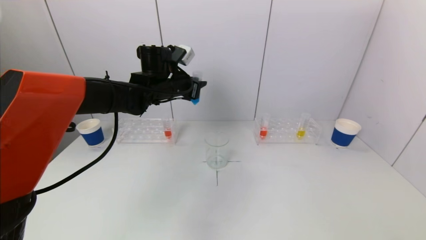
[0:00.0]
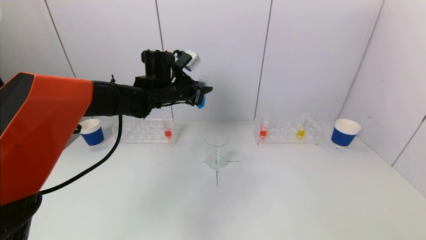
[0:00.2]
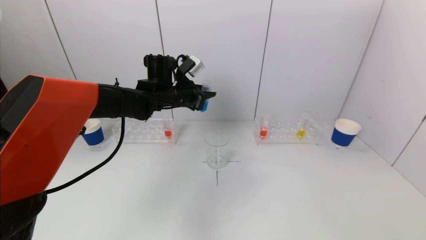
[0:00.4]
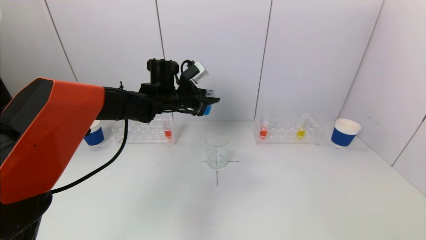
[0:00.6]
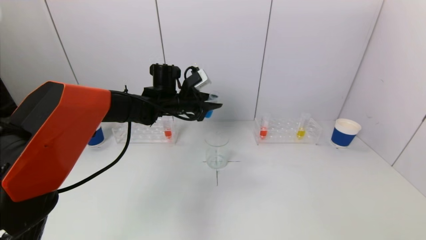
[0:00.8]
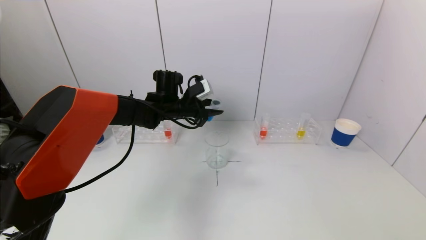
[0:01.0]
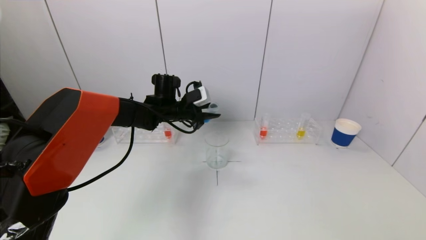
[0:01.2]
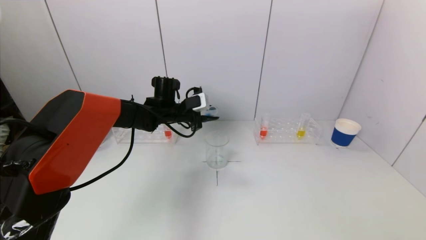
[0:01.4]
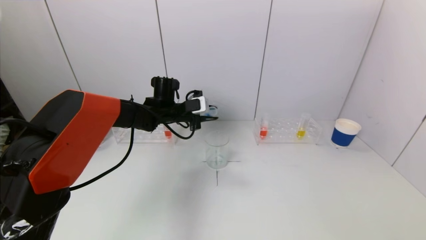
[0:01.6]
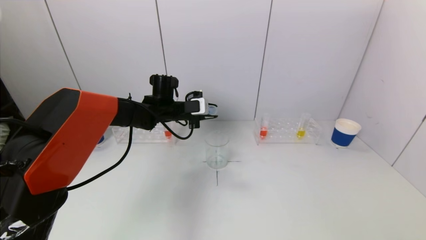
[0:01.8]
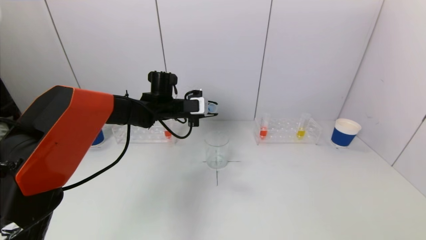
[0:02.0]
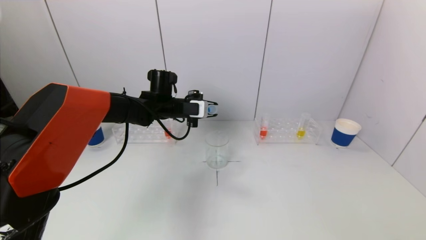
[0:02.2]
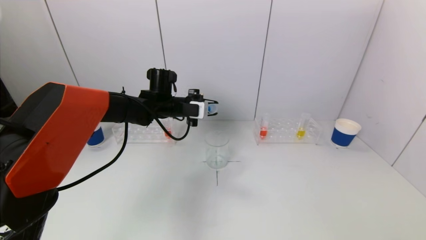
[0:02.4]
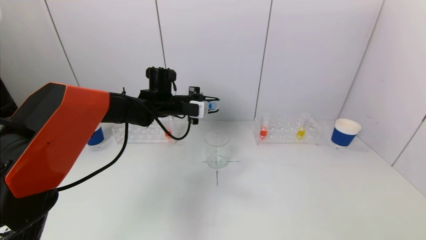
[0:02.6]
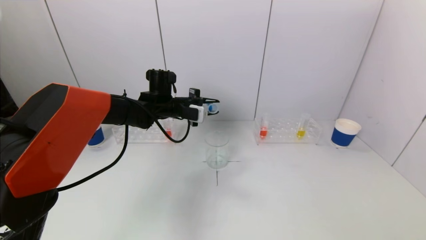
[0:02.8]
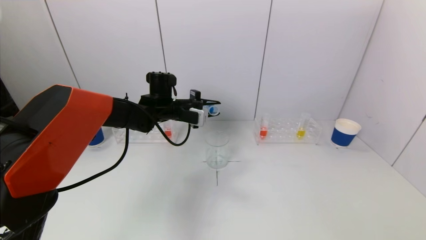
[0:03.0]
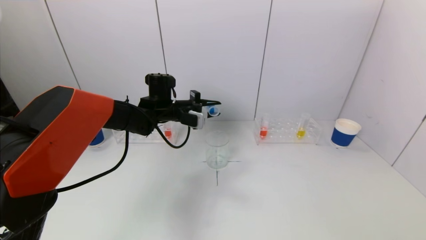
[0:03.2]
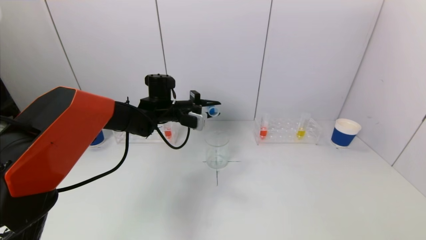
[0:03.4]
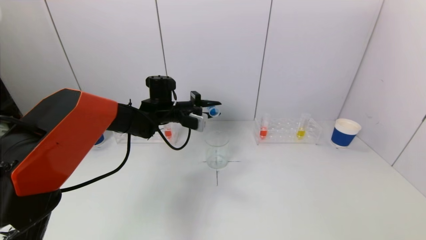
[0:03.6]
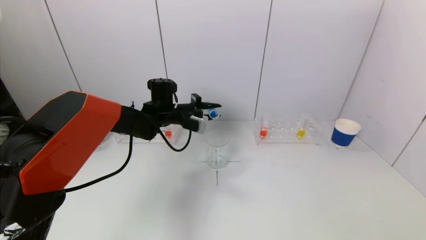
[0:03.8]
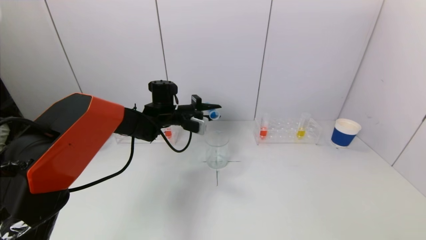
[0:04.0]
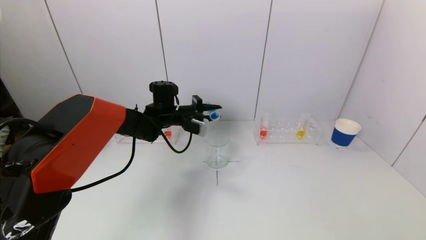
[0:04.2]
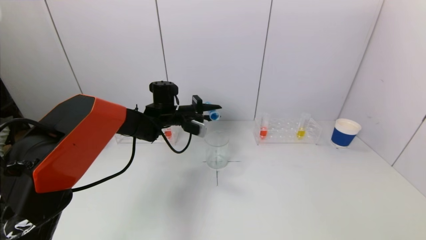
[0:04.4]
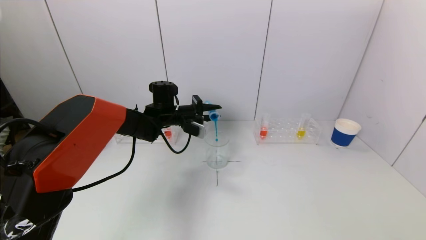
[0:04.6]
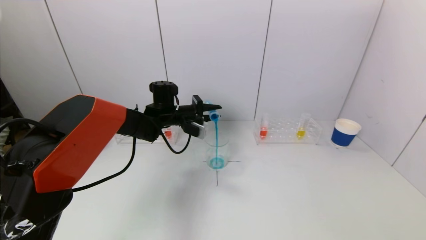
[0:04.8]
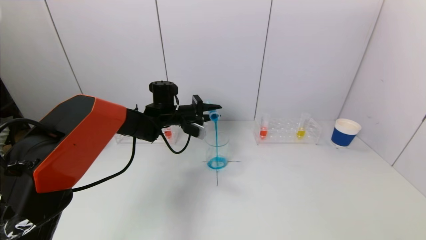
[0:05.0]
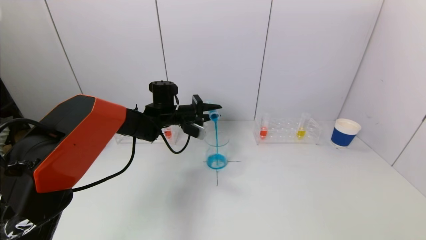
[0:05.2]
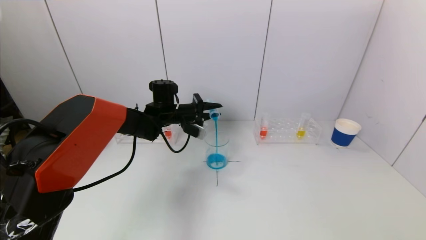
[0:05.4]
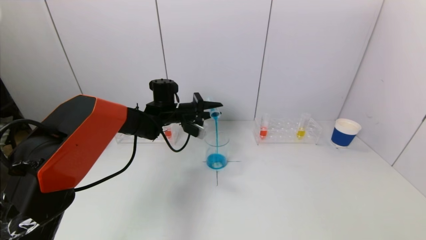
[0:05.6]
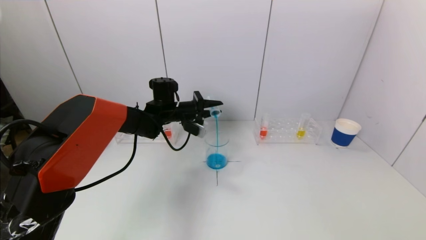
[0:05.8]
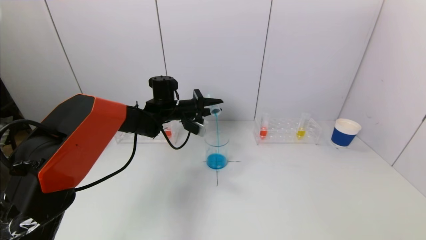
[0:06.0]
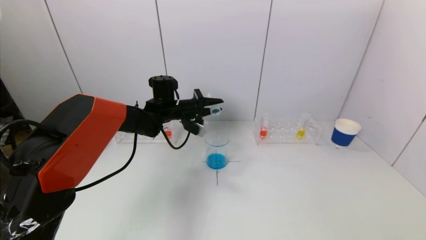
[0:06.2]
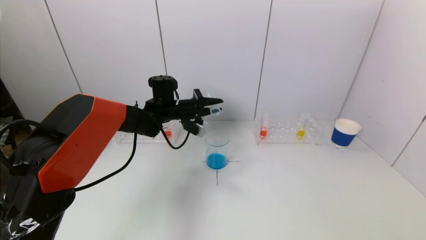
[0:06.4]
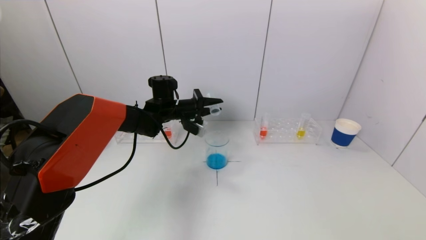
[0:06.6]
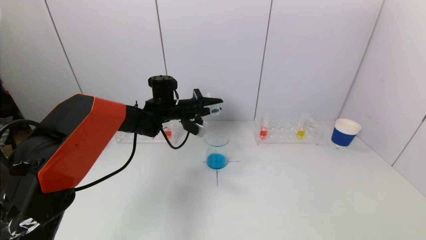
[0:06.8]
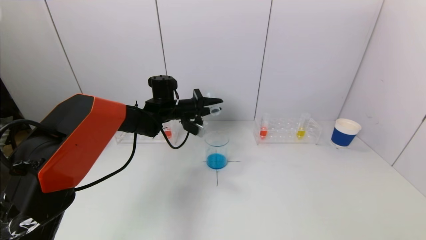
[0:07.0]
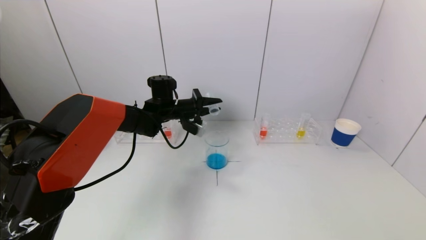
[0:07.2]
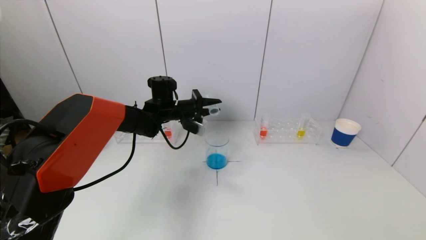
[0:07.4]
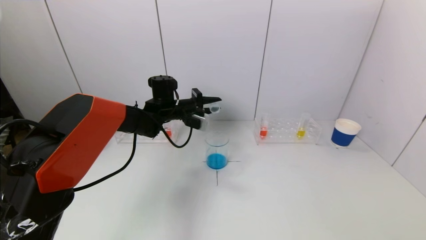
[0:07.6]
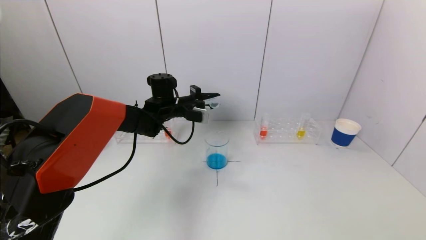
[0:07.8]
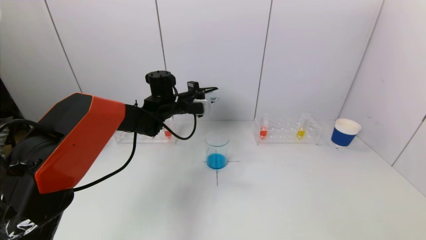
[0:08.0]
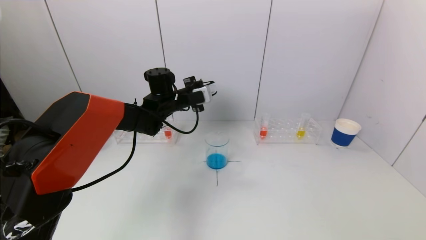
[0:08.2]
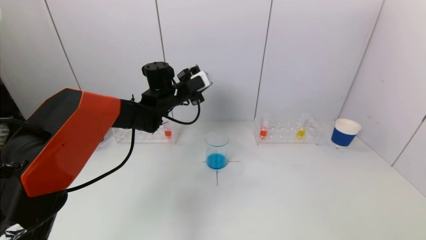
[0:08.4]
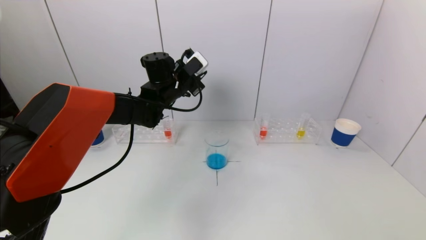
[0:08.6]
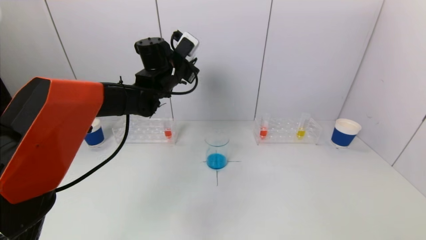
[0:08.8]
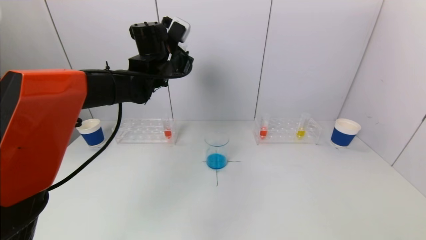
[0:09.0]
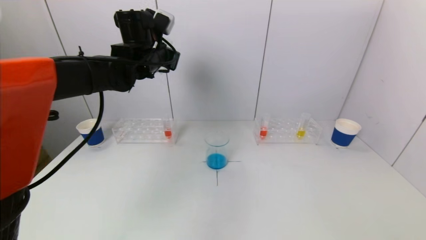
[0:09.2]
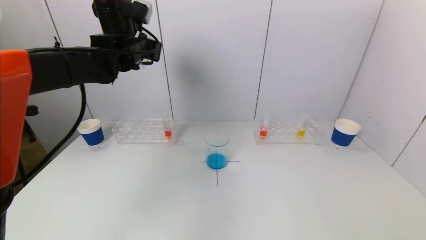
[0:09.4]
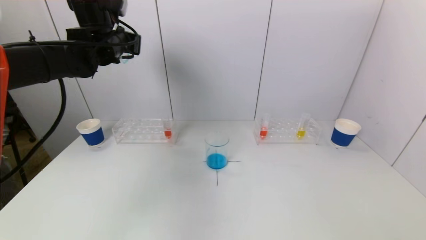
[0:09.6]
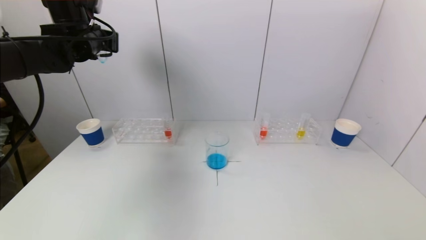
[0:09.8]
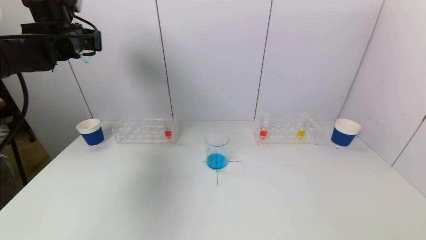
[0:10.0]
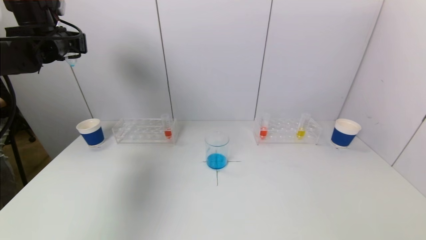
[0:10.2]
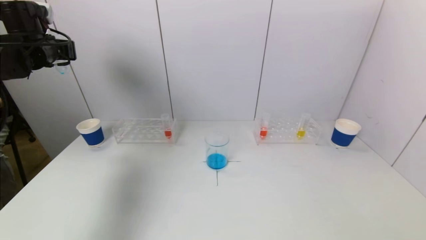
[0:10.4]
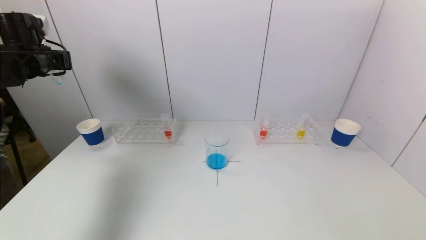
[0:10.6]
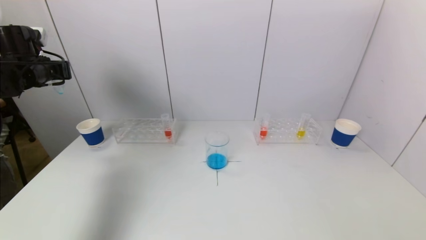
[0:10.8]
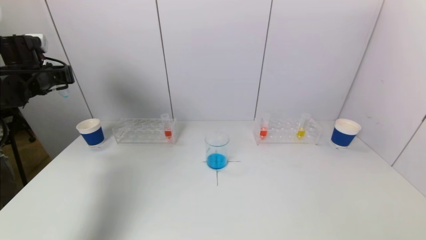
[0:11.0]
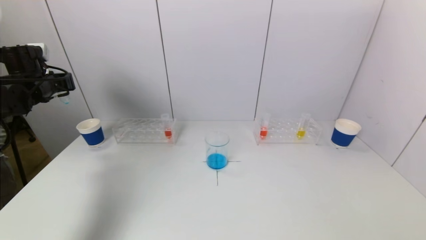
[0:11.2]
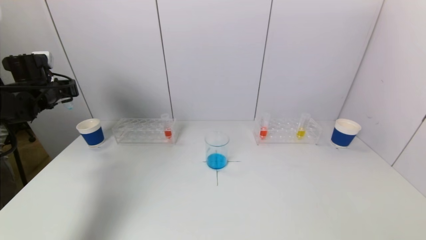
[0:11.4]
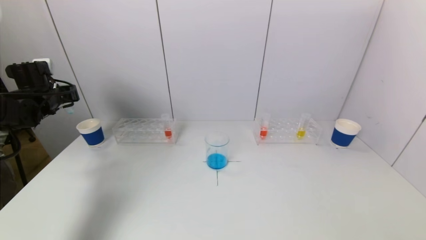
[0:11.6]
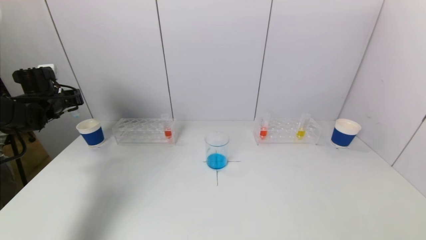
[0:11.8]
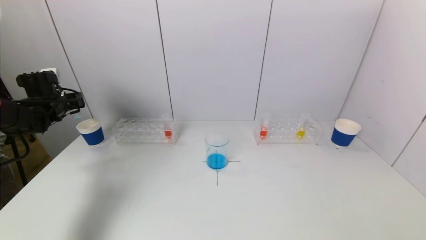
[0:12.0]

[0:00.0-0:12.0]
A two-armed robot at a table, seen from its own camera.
Task of the whole recording: pick up a test tube with pigment on left test tube rack and a test tube with pigment on right test tube rack by grippers and pour them into the beaker.
Step, 0:00.0 to 0:07.2: Pour the blue reagent into the graduated cylinder with the left gripper.
0:00.0 to 0:01.6: The left gripper goes roughly 10 cm downward.
0:03.0 to 0:04.4: There are only small adjustments of the grippers.
0:04.4 to 0:07.6: There are only small adjustments of the grippers.
0:07.6 to 0:09.0: The left gripper moves upward, about 15 cm.
0:09.0 to 0:10.4: The left gripper shifts some 25 cm to the left.
0:10.4 to 0:12.0: The left gripper travels downward by some 15 cm.

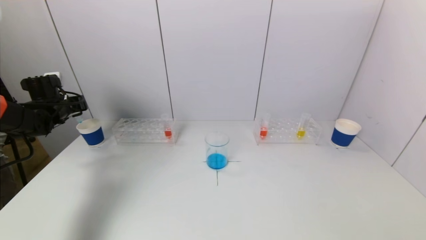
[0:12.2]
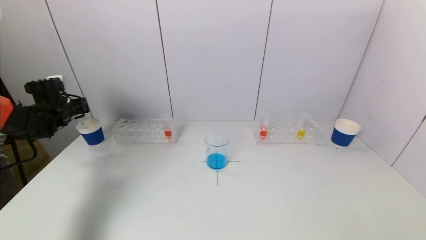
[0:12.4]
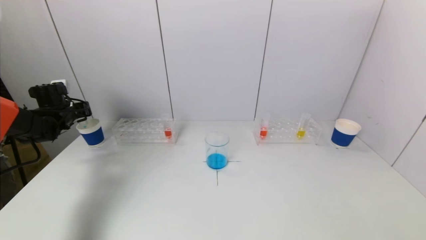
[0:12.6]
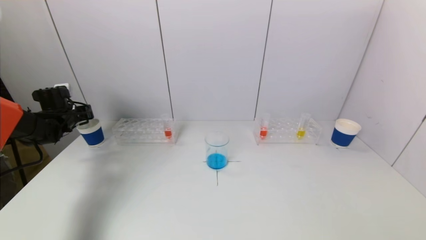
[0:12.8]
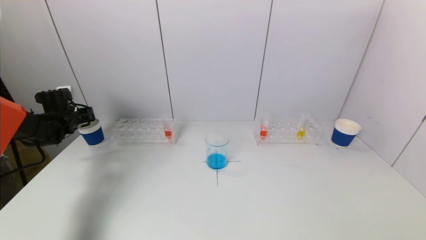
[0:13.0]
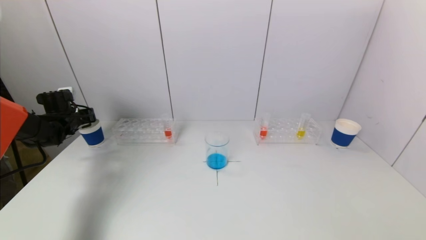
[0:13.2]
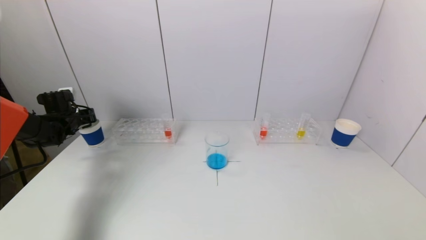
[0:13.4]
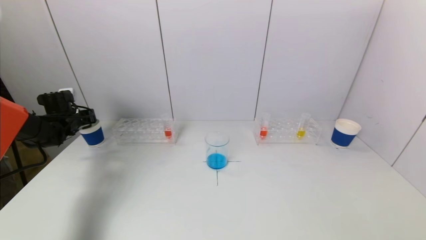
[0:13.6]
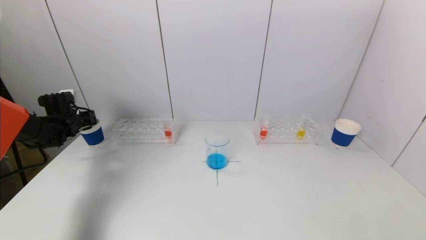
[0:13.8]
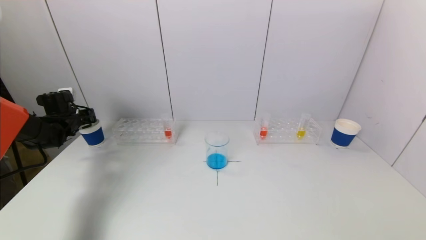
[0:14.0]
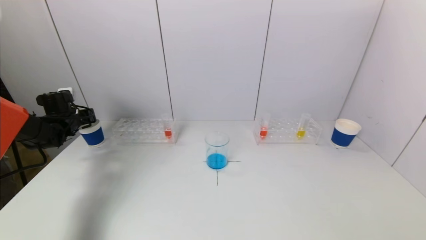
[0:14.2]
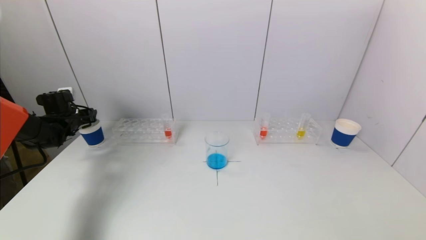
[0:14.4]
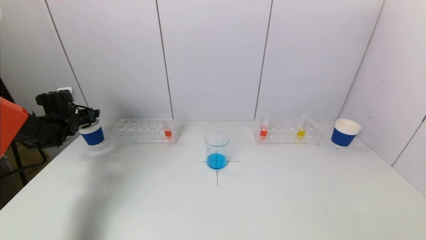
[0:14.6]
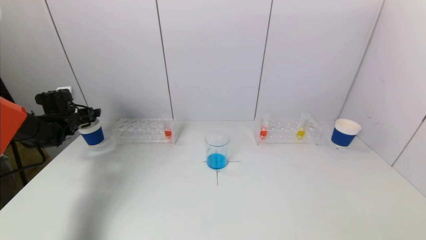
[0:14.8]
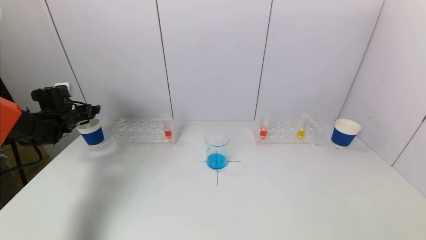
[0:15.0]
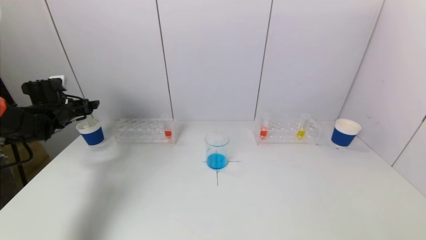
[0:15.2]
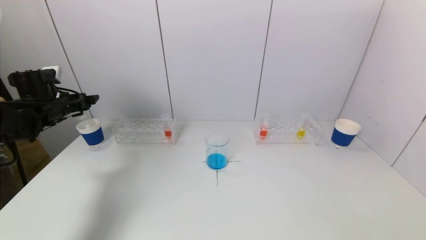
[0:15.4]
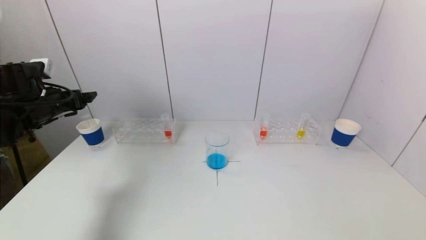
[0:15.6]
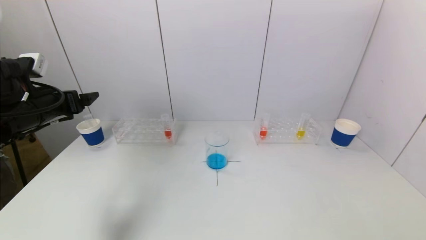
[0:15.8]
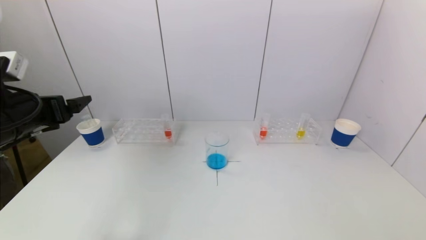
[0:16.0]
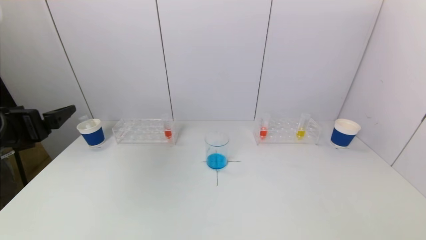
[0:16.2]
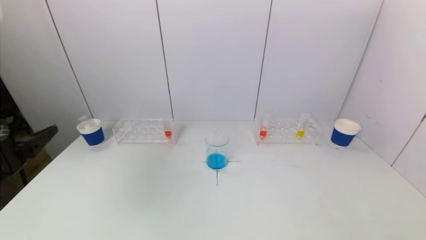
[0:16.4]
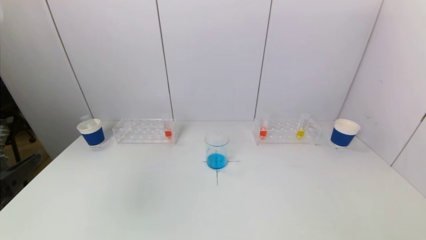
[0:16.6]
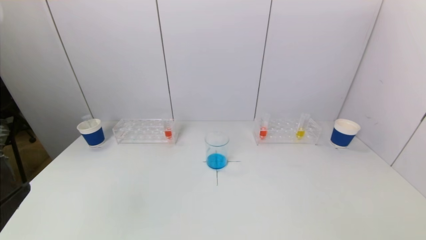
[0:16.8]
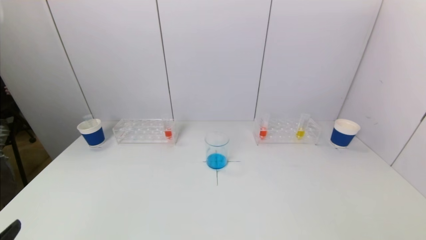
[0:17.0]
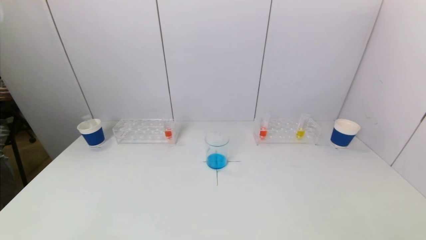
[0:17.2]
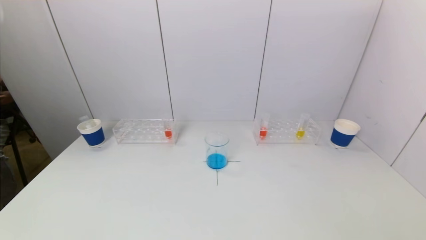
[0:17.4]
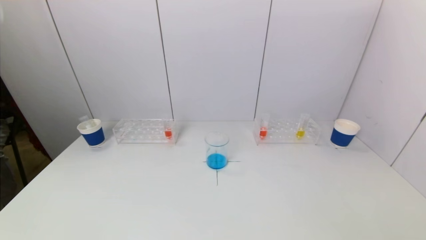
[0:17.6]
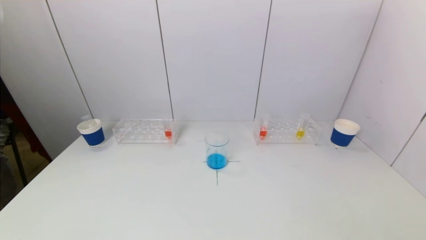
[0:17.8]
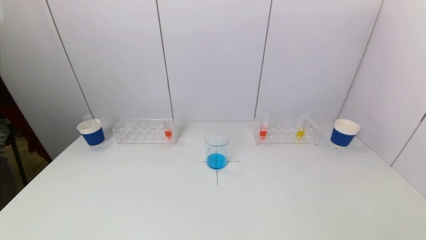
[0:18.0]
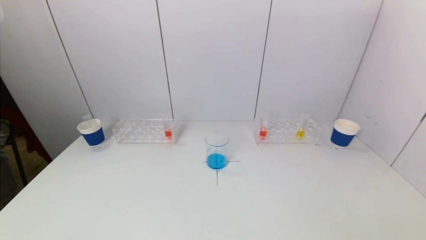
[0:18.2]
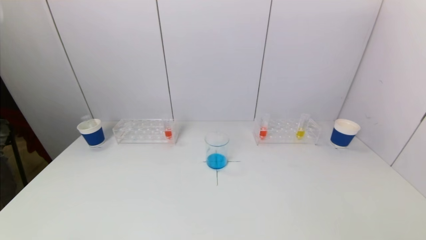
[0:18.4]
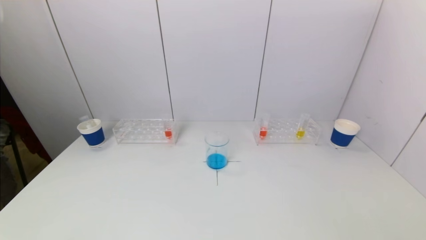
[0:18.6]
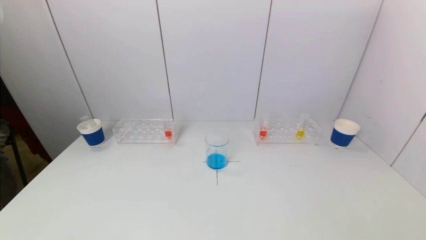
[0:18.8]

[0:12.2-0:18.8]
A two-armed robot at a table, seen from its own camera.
Task of the whole recording: pick up a test tube with pigment on left test tube rack and a test tube with pigment on right test tube rack by grippers and pour them into the beaker.
Step, 0:12.2 to 0:14.6: Place the test tube into the paper cup with the left gripper.
0:12.2 to 0:13.8: The left gripper is displaced downward by approximately 5 cm.
0:13.8 to 0:15.4: The left gripper shifts approximately 10 cm upward and backward, and opens.
0:15.4 to 0:17.2: The left gripper heads backward, covering roughly 40 cm.
